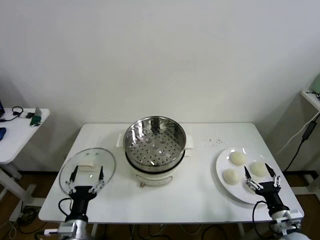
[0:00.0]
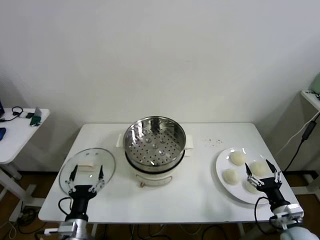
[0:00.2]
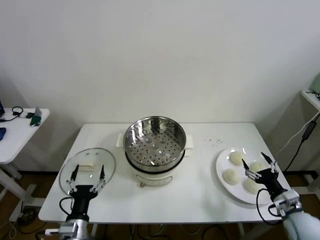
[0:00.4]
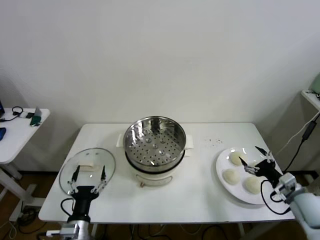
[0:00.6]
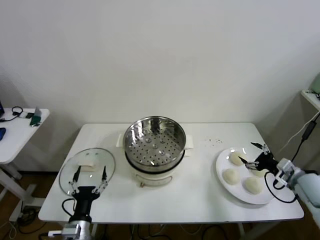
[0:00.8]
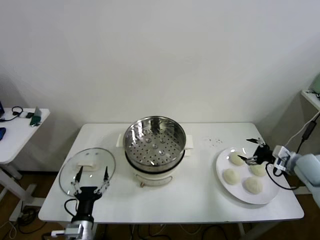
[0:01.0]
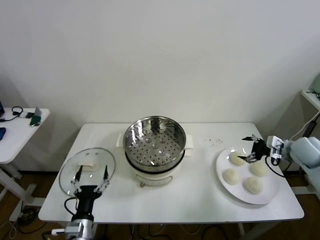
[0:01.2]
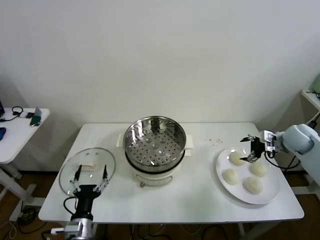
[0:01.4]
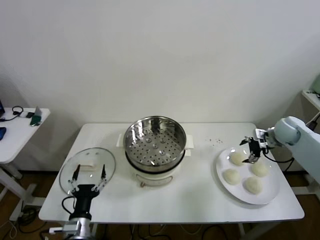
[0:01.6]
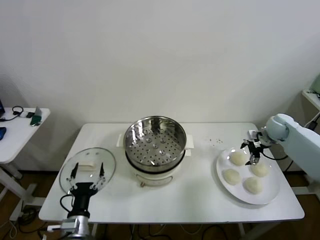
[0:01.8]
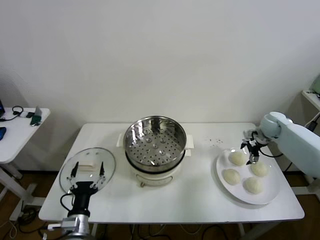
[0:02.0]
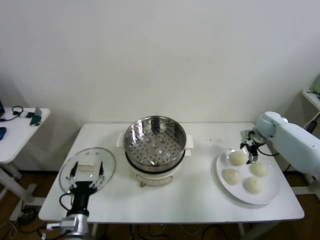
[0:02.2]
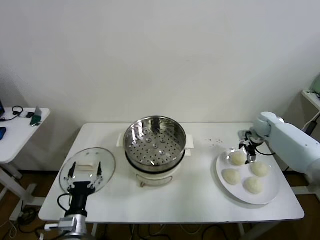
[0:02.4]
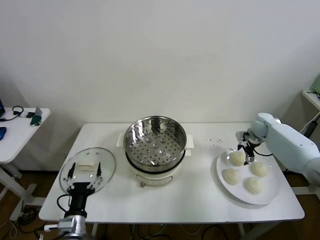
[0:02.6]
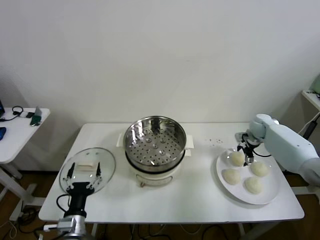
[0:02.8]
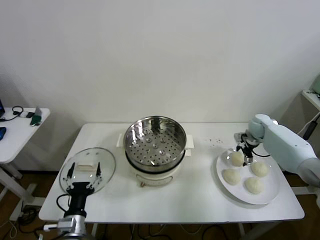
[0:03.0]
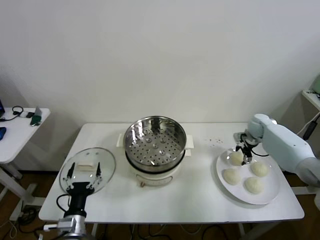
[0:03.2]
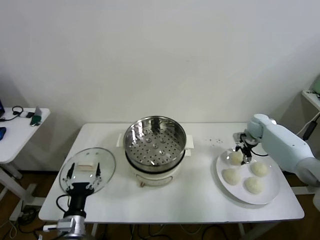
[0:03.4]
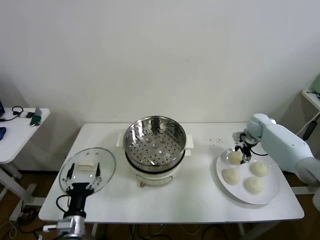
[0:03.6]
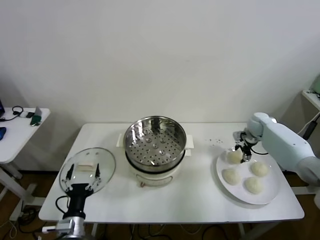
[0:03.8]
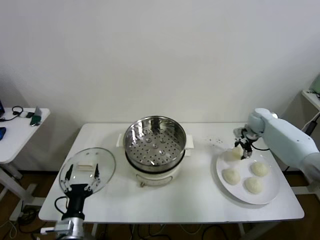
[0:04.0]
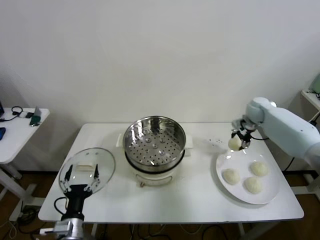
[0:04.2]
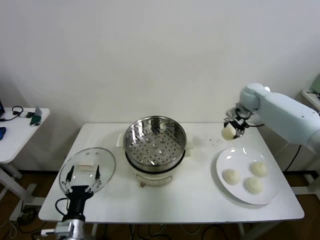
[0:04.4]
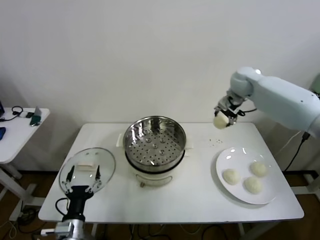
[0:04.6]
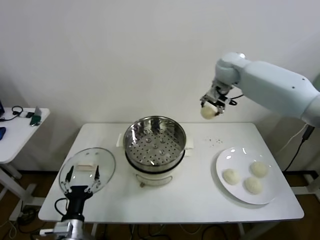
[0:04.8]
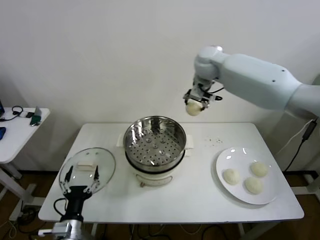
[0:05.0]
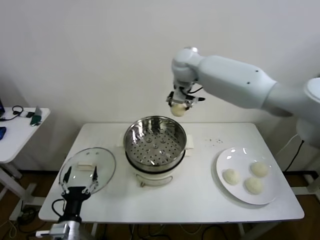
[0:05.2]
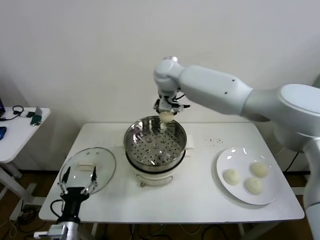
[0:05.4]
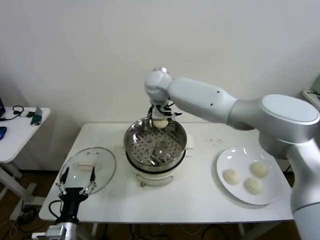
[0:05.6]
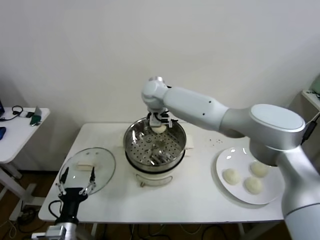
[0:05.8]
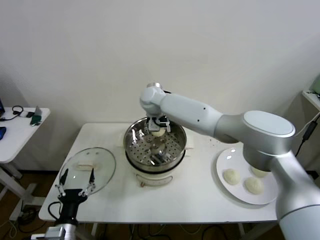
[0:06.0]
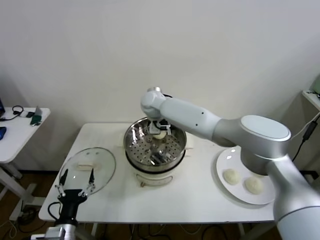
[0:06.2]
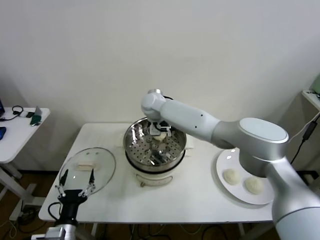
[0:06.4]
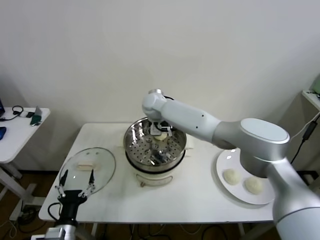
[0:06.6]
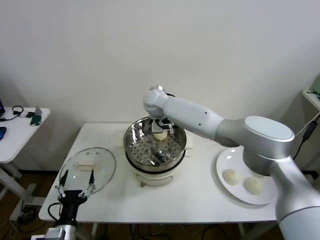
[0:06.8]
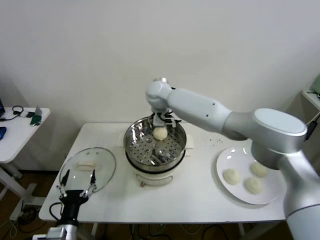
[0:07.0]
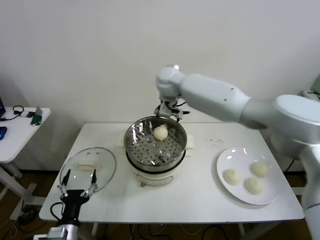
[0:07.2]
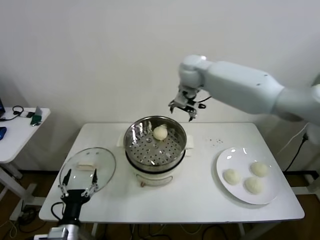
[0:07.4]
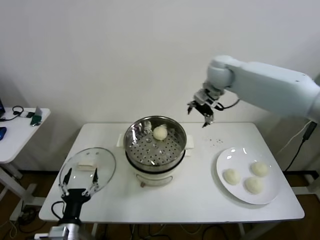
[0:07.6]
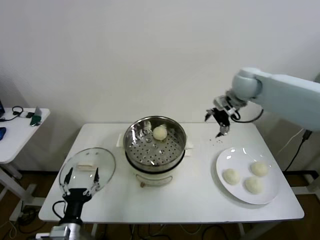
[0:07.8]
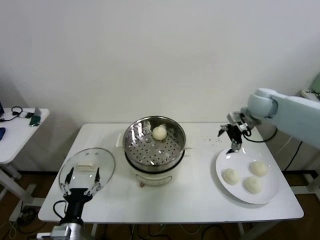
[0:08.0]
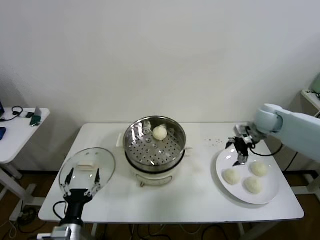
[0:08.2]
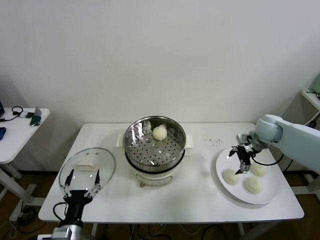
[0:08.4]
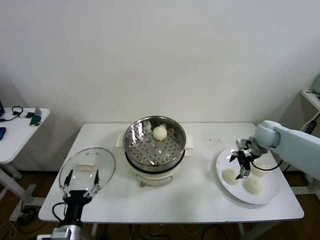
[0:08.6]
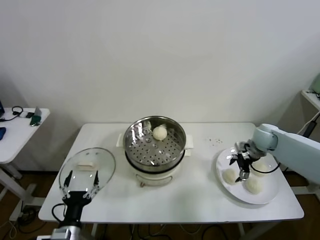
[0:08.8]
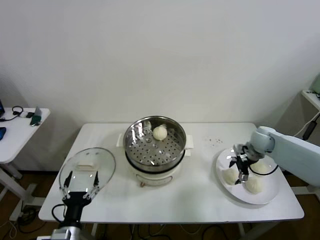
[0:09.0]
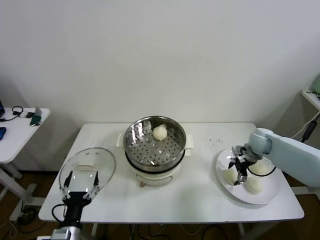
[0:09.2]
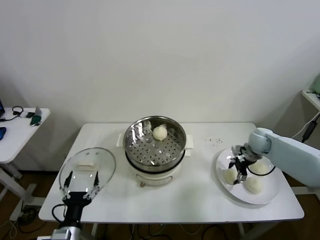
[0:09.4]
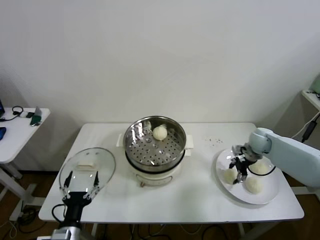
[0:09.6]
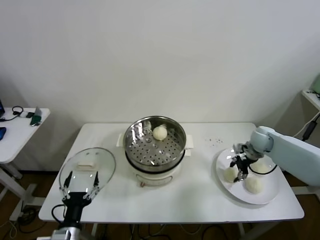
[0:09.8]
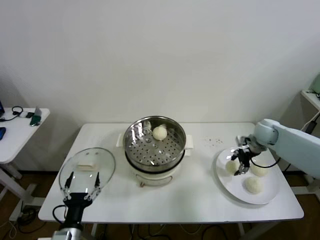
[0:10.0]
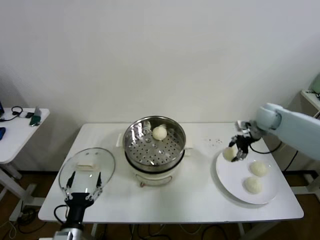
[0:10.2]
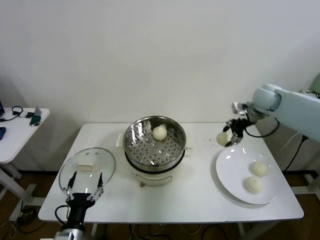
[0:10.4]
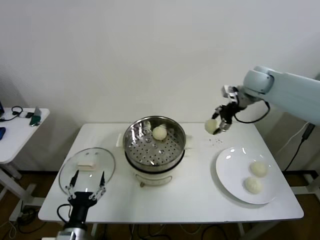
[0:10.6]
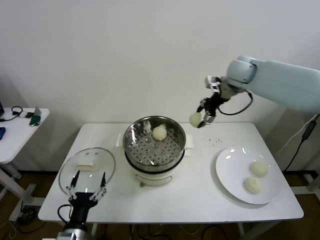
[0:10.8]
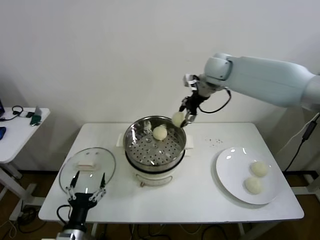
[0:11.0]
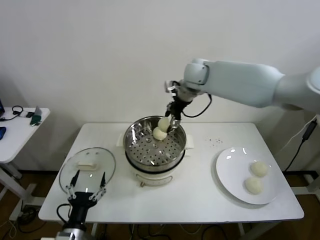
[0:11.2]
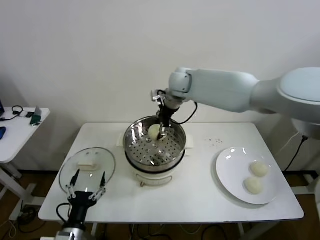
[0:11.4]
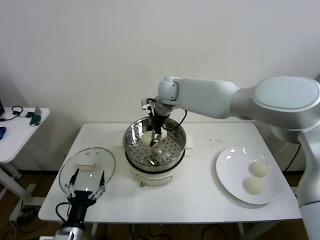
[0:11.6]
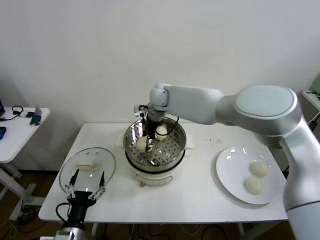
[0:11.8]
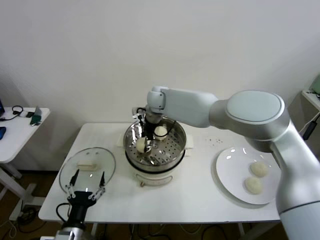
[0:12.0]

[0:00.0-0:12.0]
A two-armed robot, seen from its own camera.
Step, 0.0 to 3.4 s: Grasp the baozi in the plate with right gripper.
Step, 3.8 to 6.4 s: Place the baozi on the steamer with right gripper.
Step, 6.8 to 9.6 s: Grasp the baozi in the plate with right gripper.
1.6 to 3.0 s: The right gripper moves forward and downward, some 10 cm.
3.0 to 4.4 s: The right gripper shifts some 20 cm upward and to the left, and closes.
4.4 to 6.0 s: The right gripper moves to the left, approximately 35 cm.
6.0 to 7.6 s: The right gripper travels to the right and upward by some 30 cm, and opens up.
7.6 to 9.0 s: The right gripper travels downward and to the right by approximately 30 cm.
9.0 to 10.4 s: The right gripper moves upward, some 20 cm, and closes up.
10.4 to 12.0 s: The right gripper shifts about 35 cm to the left.

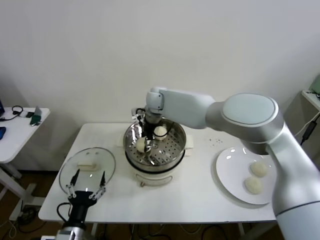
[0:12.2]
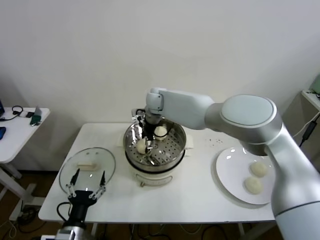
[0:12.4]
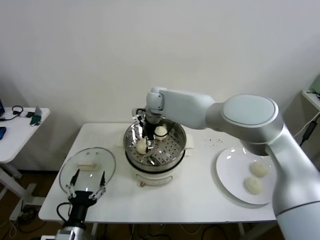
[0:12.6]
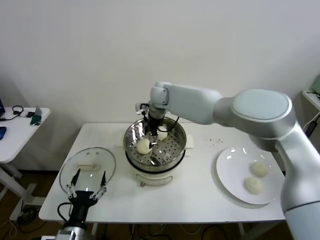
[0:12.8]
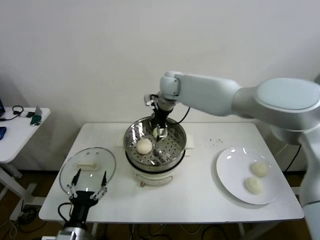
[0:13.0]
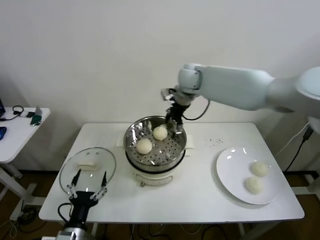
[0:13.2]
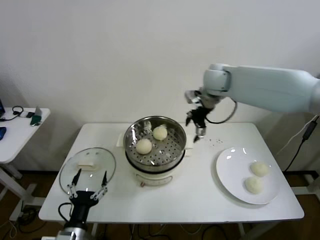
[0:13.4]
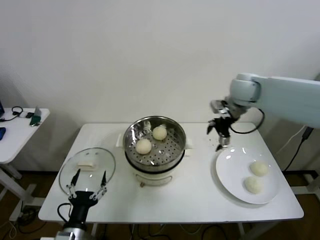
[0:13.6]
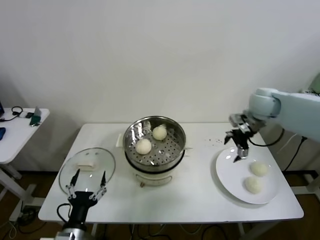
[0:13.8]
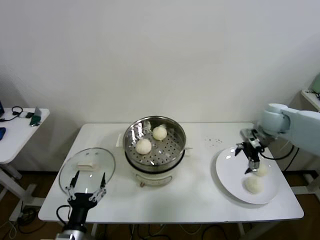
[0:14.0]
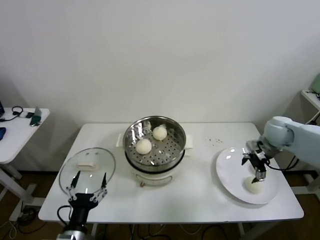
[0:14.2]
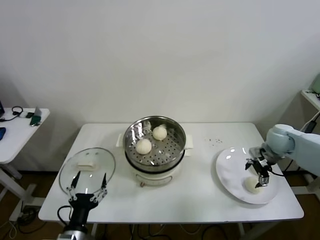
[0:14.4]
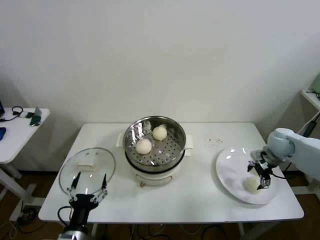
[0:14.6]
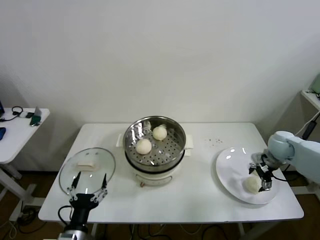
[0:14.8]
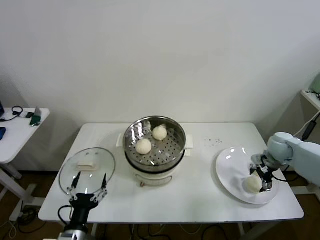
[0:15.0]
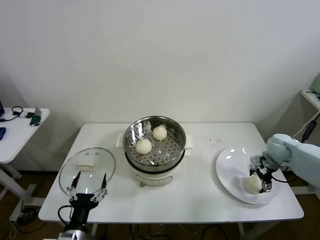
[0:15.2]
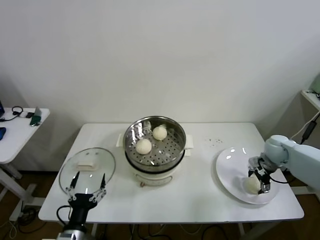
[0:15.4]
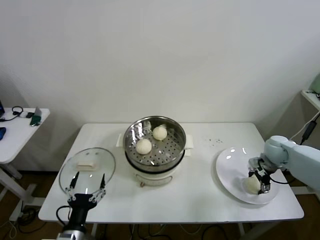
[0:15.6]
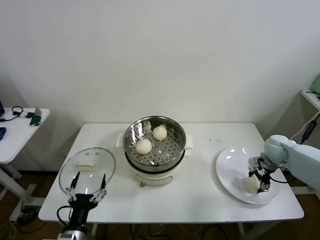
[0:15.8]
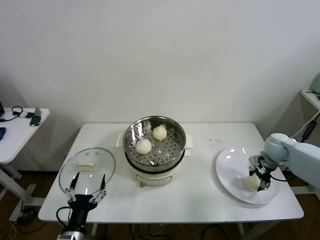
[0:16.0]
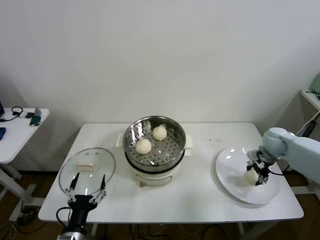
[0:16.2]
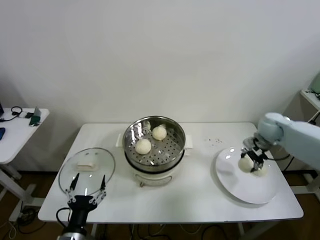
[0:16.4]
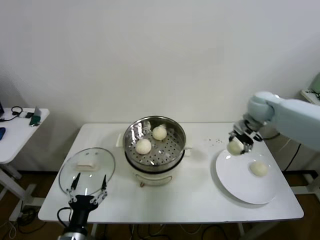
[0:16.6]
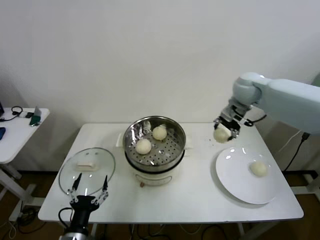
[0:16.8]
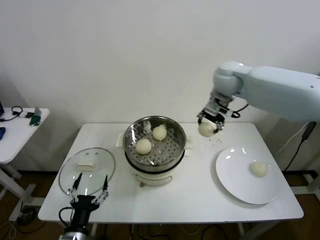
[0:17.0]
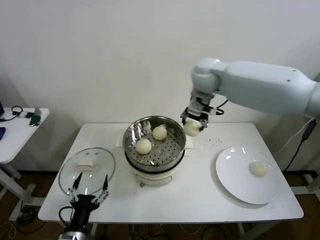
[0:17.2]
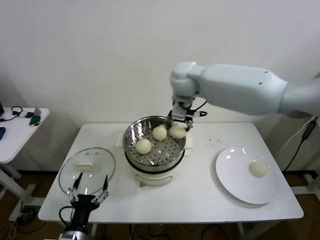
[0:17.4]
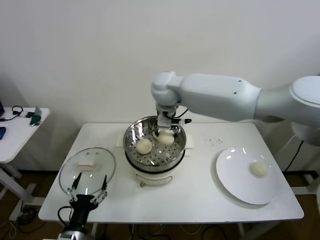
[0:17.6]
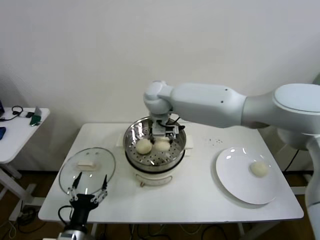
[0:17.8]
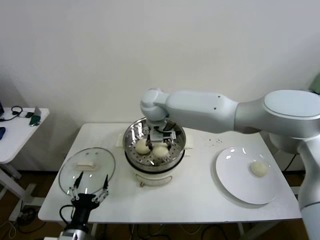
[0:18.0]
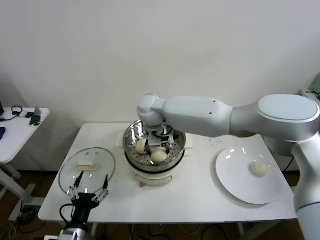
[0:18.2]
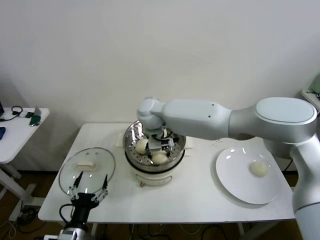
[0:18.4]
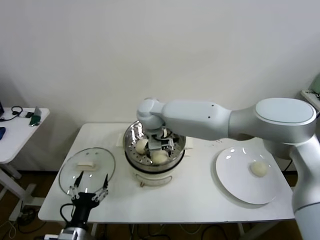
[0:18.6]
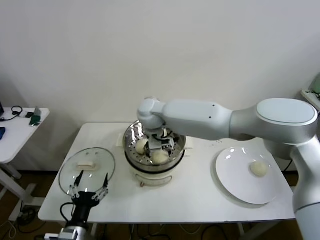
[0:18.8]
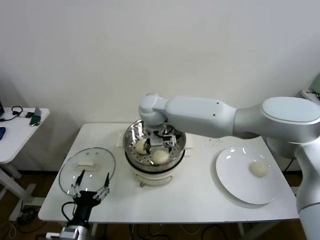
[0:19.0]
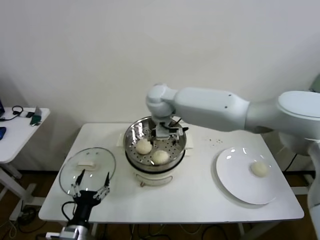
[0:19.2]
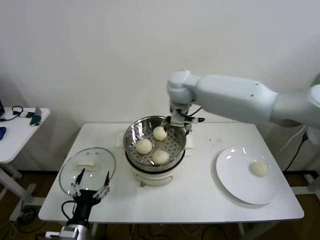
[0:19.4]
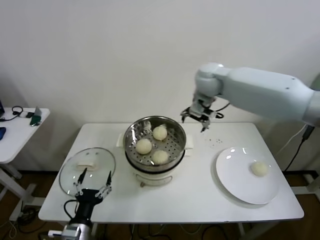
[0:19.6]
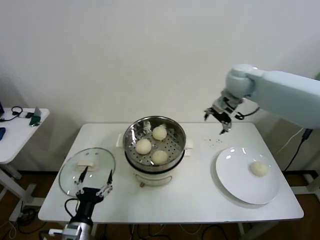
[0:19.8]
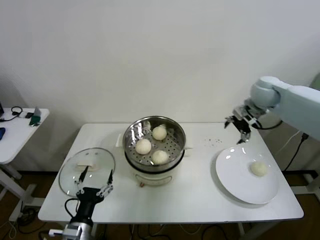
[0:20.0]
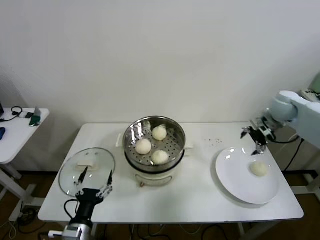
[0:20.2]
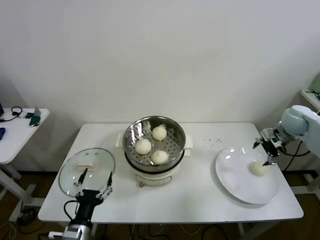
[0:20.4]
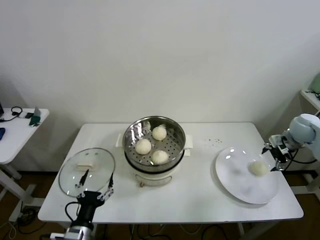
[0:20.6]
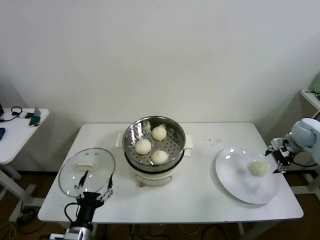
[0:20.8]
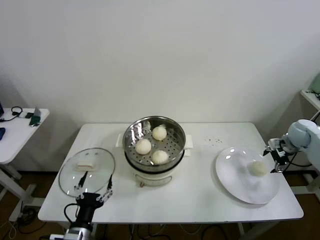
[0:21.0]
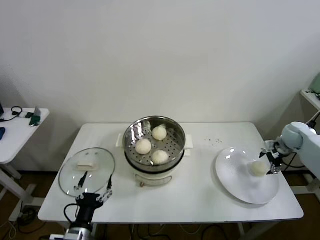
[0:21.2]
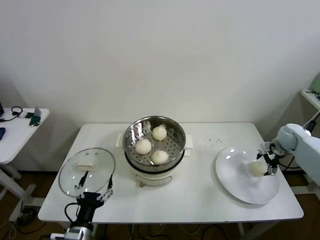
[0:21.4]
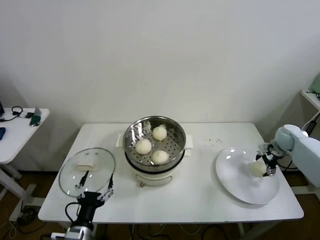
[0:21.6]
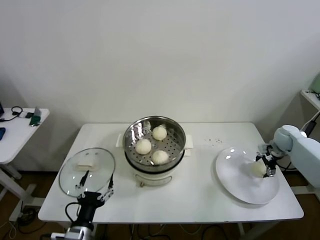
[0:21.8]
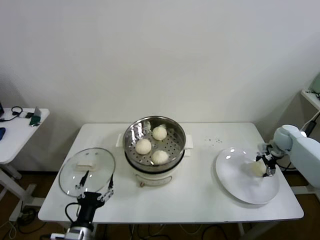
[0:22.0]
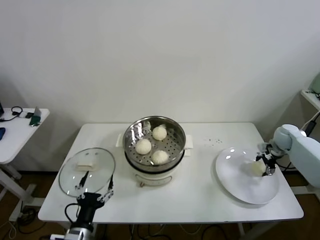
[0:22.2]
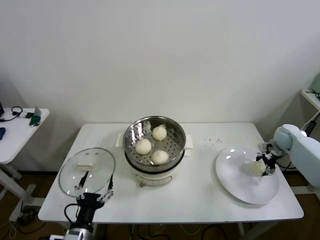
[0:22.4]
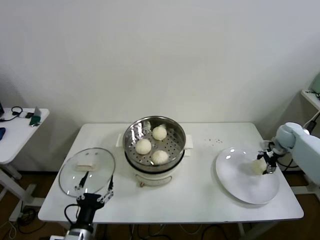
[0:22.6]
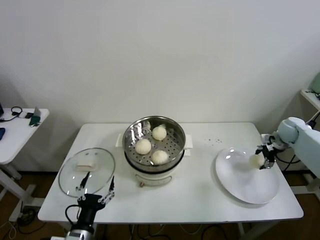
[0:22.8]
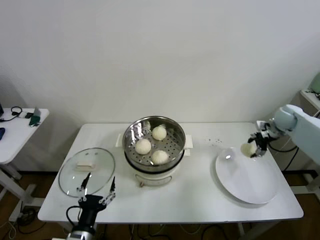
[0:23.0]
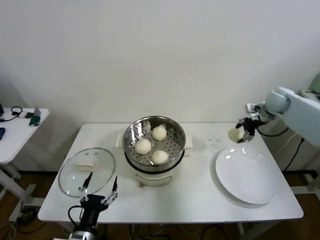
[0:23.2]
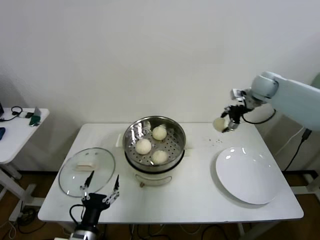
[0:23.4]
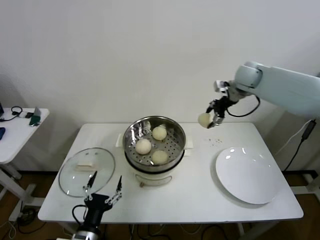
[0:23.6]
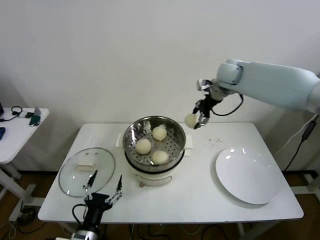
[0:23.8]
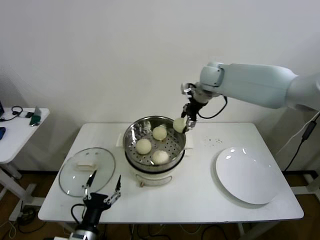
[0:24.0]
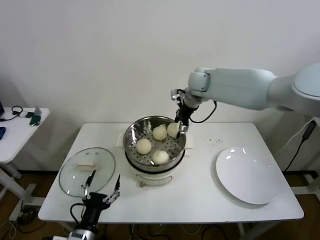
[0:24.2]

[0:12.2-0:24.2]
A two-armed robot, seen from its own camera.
Step, 12.8 to 15.8 s: Grasp the baozi in the plate with right gripper.
Step, 16.0 to 18.6 s: Place the baozi on the steamer with right gripper.
Step, 18.8 to 22.2 s: Grasp the baozi in the plate with right gripper.
12.2 to 13.8 s: The right gripper goes about 35 cm to the right, and opens.
13.8 to 15.2 s: The right gripper goes approximately 20 cm downward and to the right.
15.2 to 16.6 s: The right gripper is displaced upward, to the left and forward by some 20 cm, and closes its fingers.
16.6 to 18.2 s: The right gripper shifts approximately 35 cm to the left.
18.2 to 19.8 s: The right gripper goes some 30 cm to the right, and opens its fingers.
19.8 to 21.2 s: The right gripper is displaced to the right and downward by approximately 30 cm.
21.2 to 22.6 s: The right gripper closes up.
22.6 to 24.2 s: The right gripper heads to the left and upward, covering approximately 40 cm.
